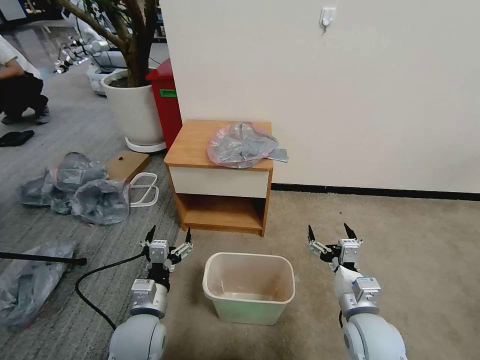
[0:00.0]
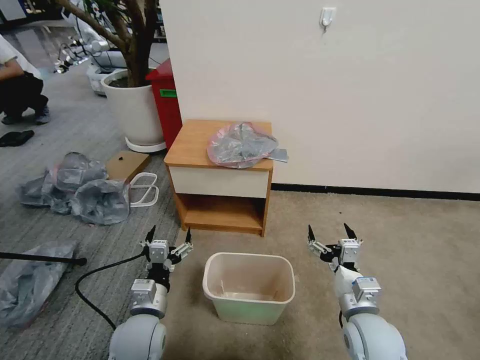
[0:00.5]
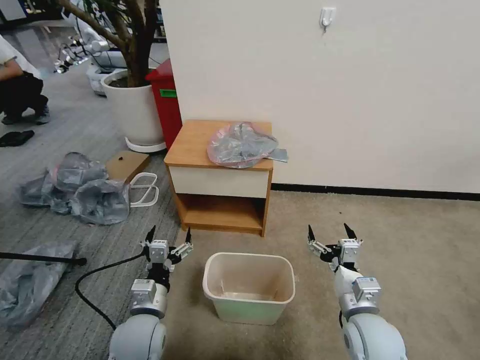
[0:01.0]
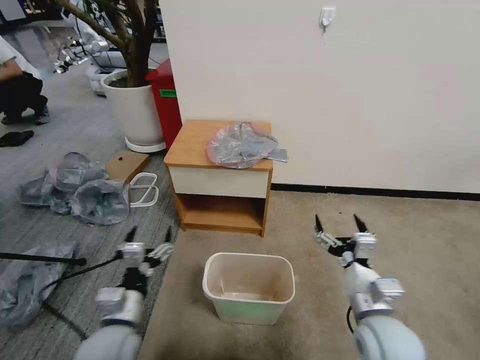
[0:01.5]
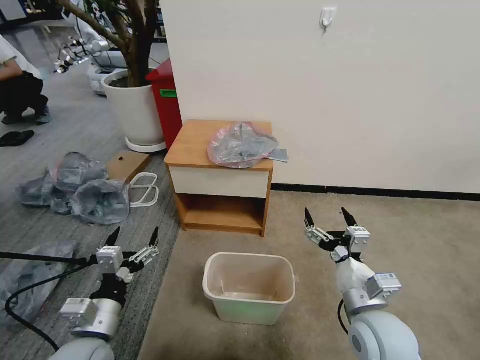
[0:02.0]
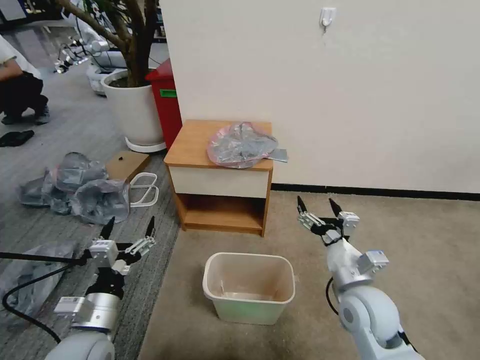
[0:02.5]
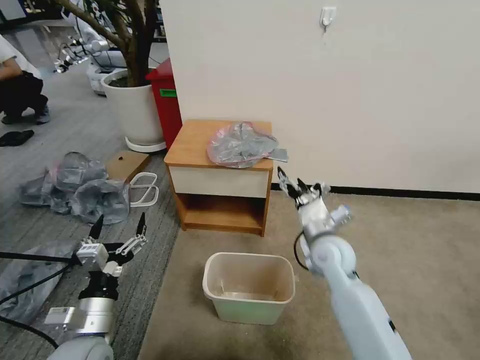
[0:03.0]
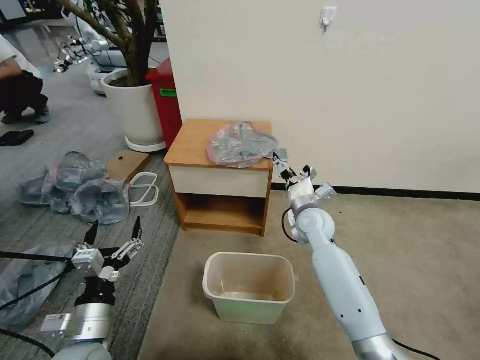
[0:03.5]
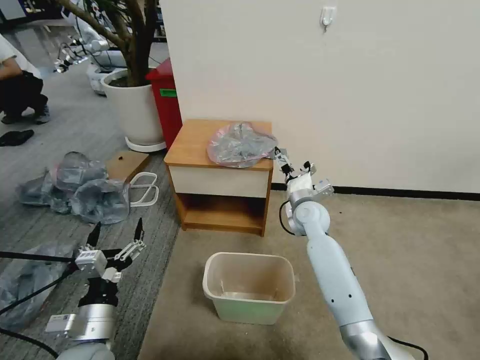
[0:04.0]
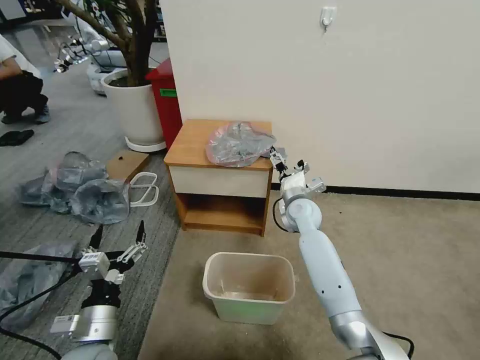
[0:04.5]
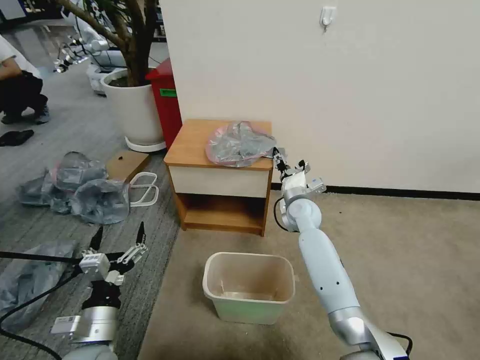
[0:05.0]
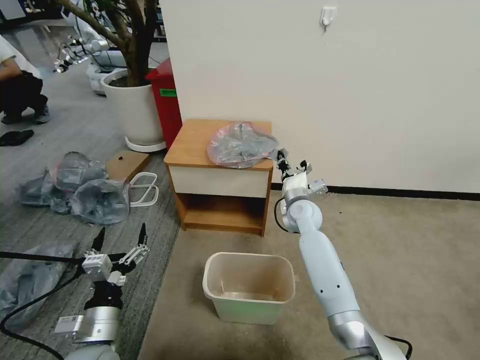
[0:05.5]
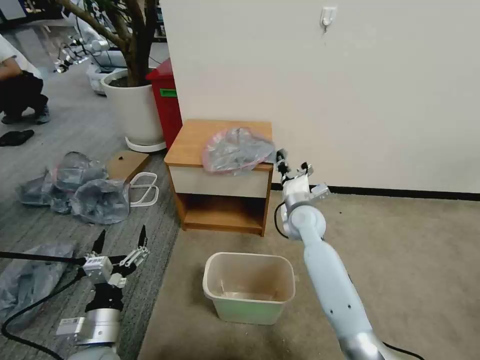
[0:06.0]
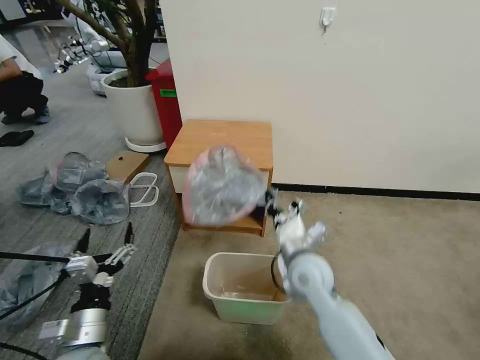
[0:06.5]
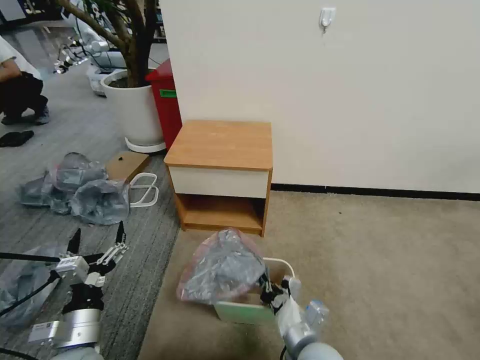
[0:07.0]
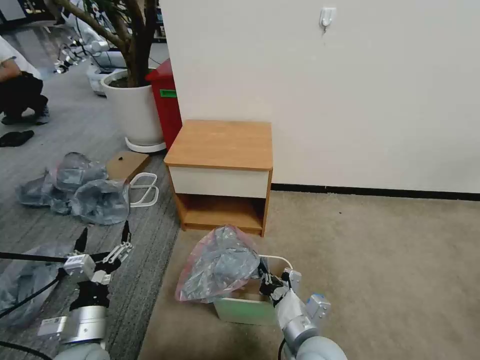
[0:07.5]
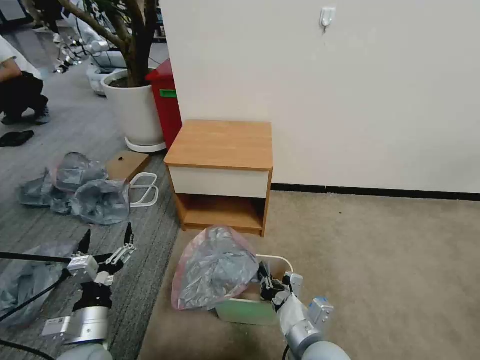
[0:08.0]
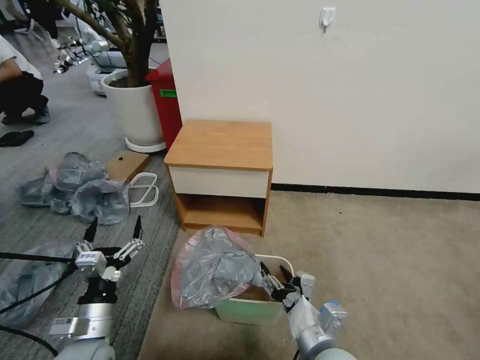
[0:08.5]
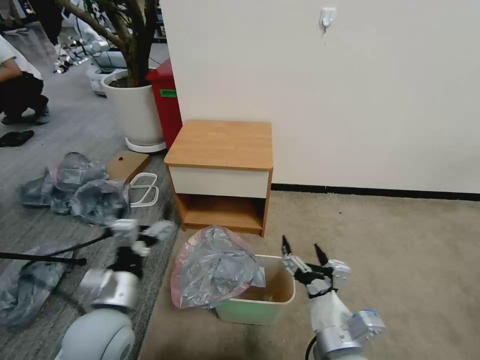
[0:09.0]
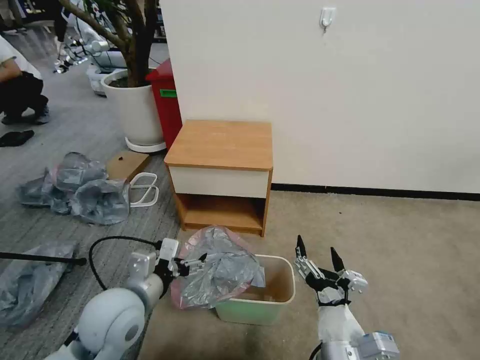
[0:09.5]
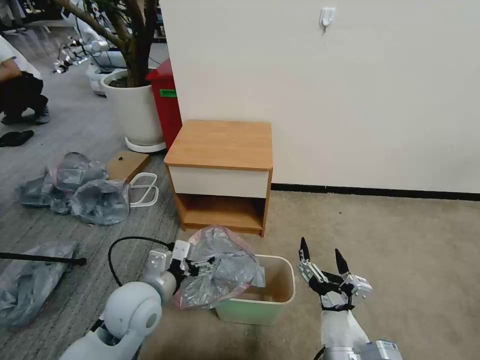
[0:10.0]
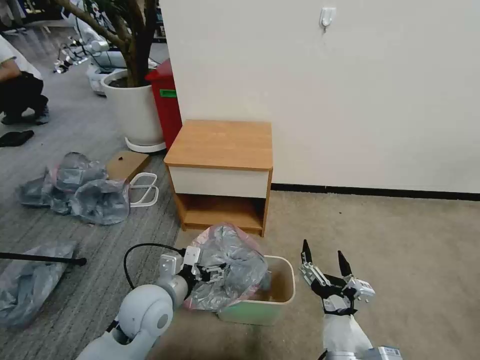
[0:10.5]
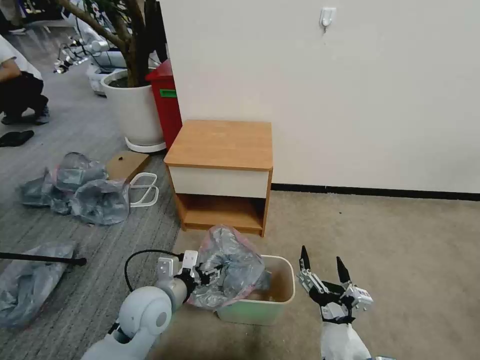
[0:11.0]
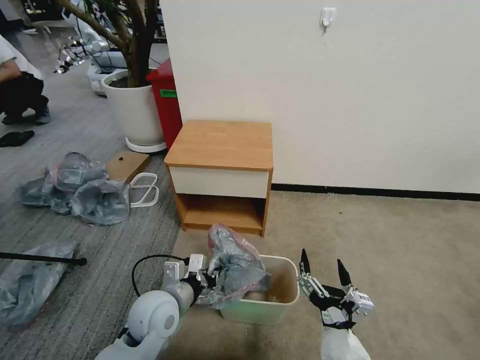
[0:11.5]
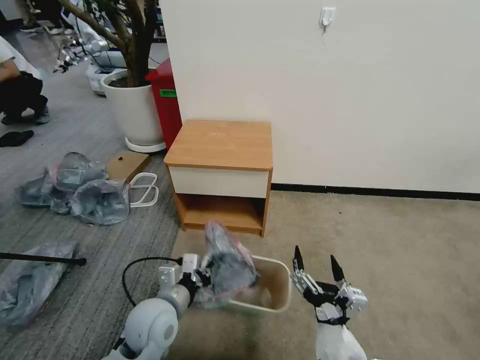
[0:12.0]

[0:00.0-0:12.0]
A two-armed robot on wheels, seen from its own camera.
Task of the whole recording: Pick up the garbage bag from the table and place it over the trash can.
0:02.0 to 0:04.0: The right gripper travels forward by about 30 cm.
0:04.0 to 0:06.0: The right gripper closes its fingers.
0:06.0 to 0:08.0: The right gripper heads backward, covering about 30 cm.
0:08.0 to 0:10.0: The left gripper is displaced forward, to the right and upward by roughly 15 cm, while the right gripper is displaced backward by approximately 5 cm, and opens its fingers.
0:10.0 to 0:12.0: The left gripper shifts by approximately 5 cm, and closes up.

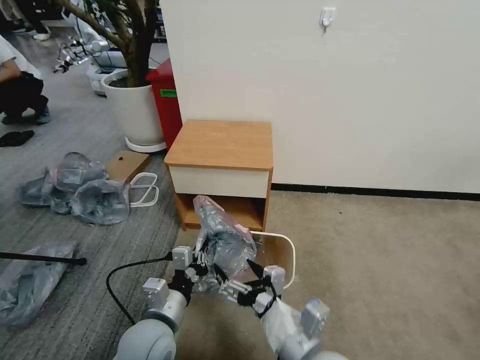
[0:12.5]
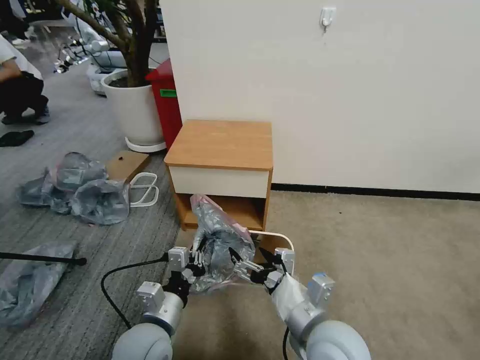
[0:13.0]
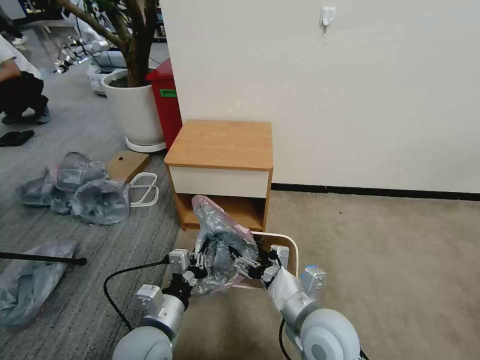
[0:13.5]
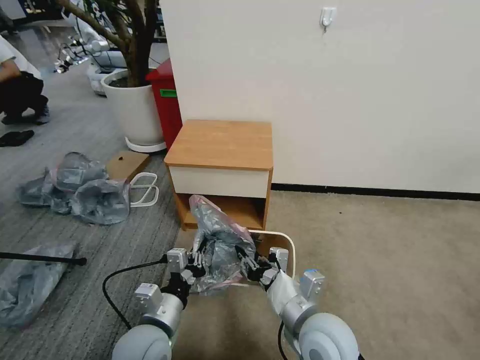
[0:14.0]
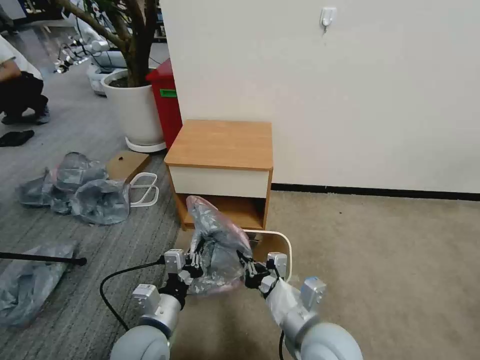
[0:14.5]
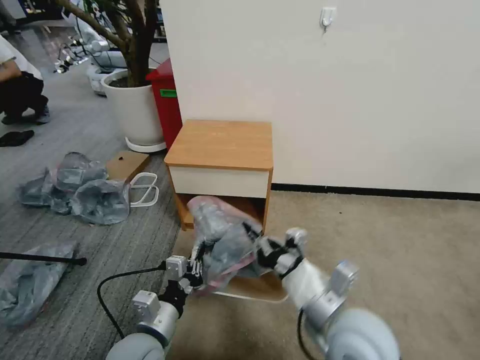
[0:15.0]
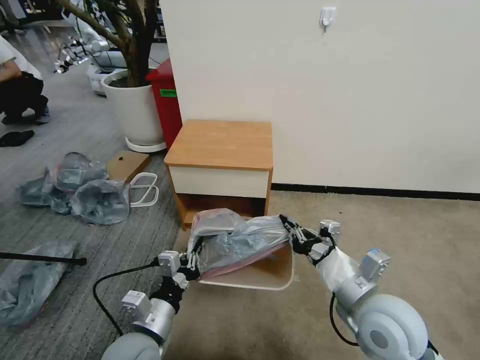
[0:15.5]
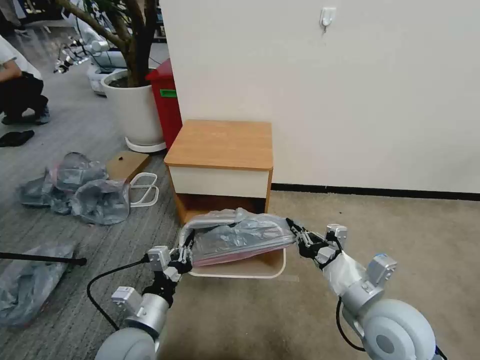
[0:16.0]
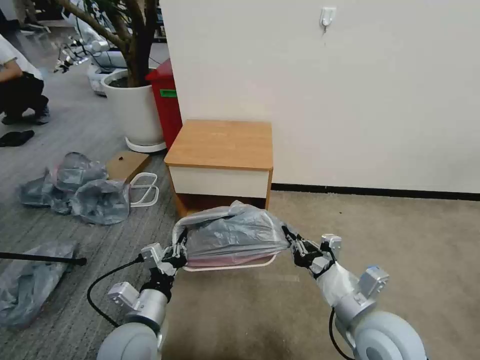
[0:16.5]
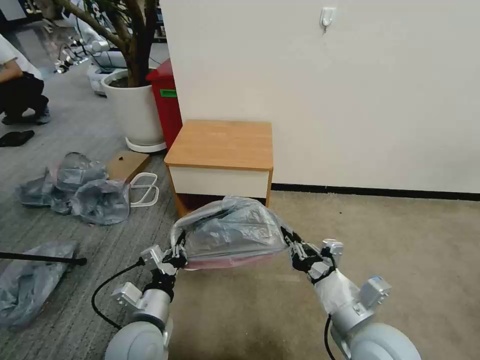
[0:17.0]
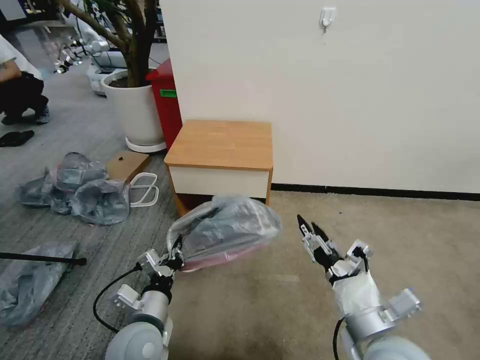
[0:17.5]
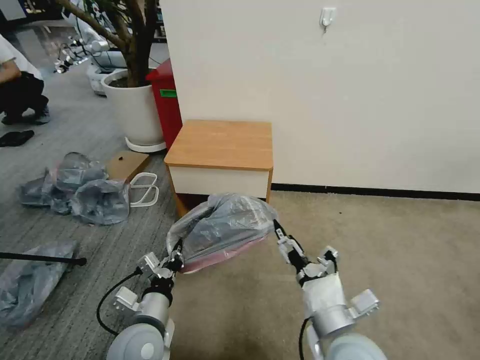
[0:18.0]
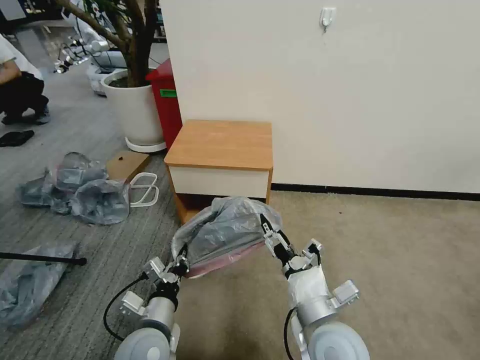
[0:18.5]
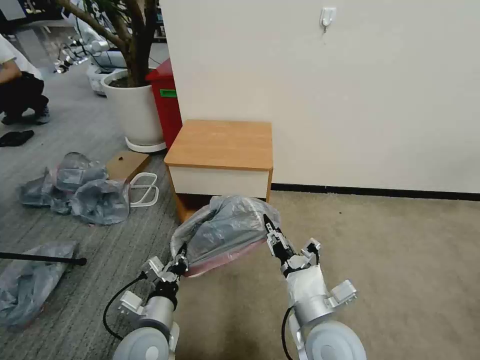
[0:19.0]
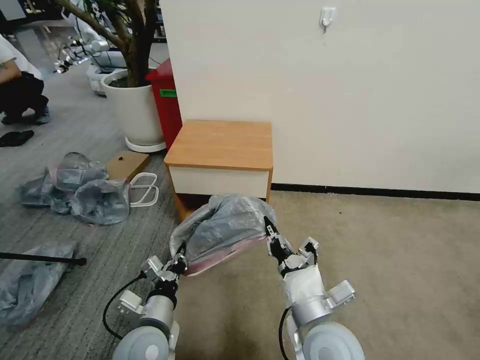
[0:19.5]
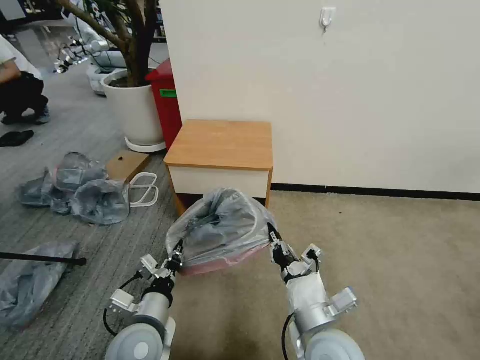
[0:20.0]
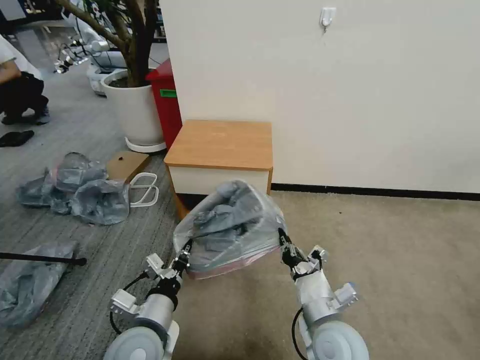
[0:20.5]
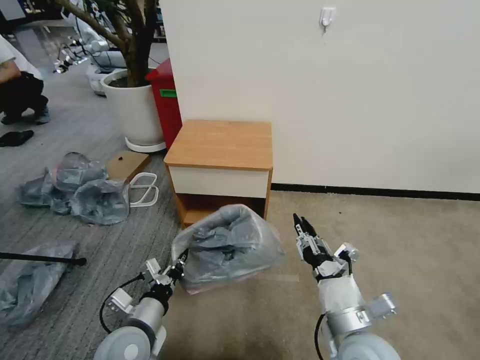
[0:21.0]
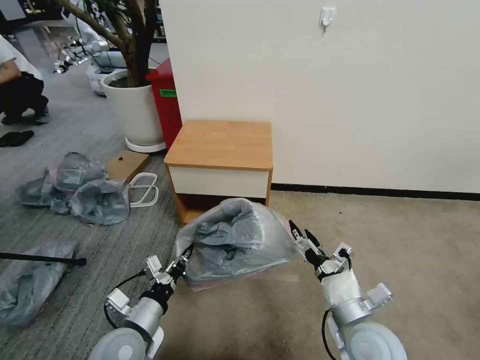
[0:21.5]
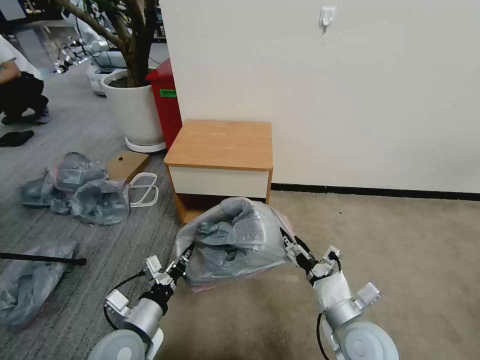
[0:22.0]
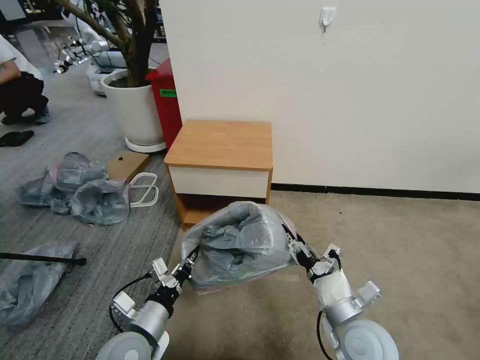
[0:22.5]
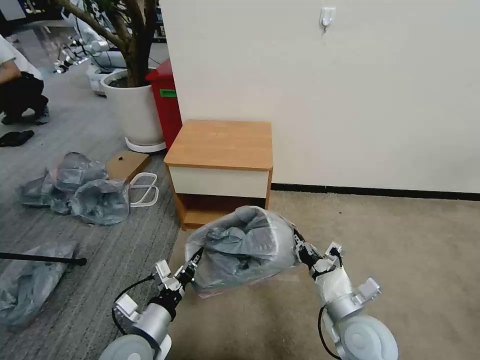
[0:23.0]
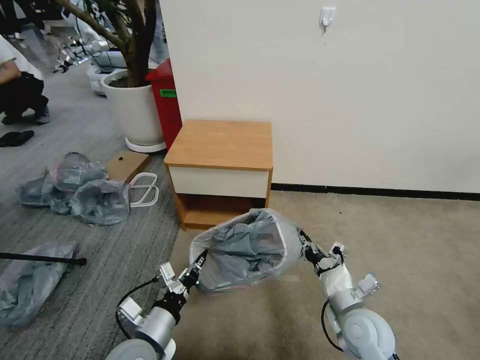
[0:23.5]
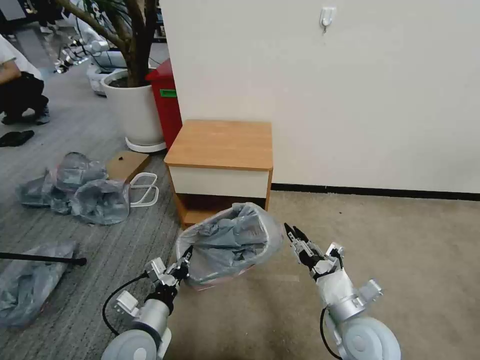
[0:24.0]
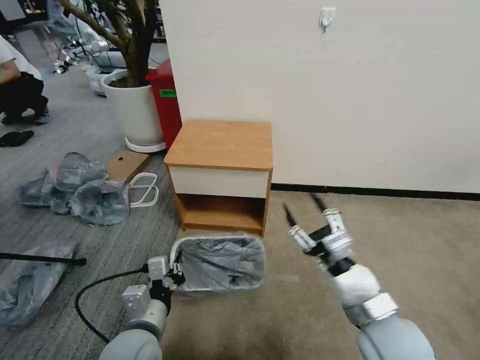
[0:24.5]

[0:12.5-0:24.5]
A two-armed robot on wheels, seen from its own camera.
Task of the whole recording: Pick up the garbage bag from the table and place it over the trash can.
0:12.5 to 0:14.5: The right gripper moves some 5 cm, and closes.
0:14.5 to 0:16.5: The right gripper moves to the right, some 10 cm.
0:16.5 to 0:18.5: The right gripper is displaced to the left by approximately 10 cm, and opens up.
0:18.5 to 0:20.5: The right gripper shifts by roughly 5 cm, and closes up.
0:20.5 to 0:22.5: The right gripper moves to the right, approximately 5 cm, and opens its fingers. Meanwhile the left gripper changes place by approximately 5 cm.
0:22.5 to 0:24.5: The right gripper shifts about 10 cm upward, and closes, then reopens.

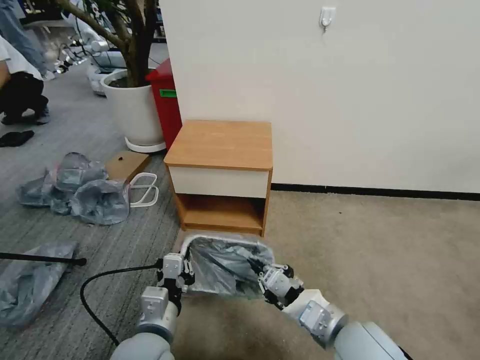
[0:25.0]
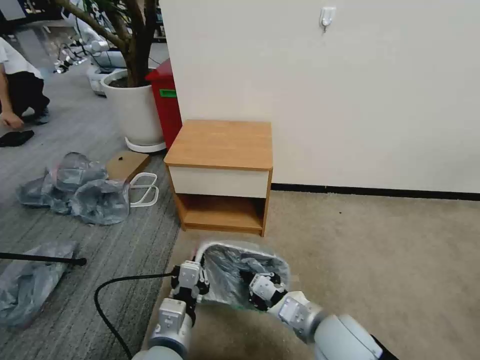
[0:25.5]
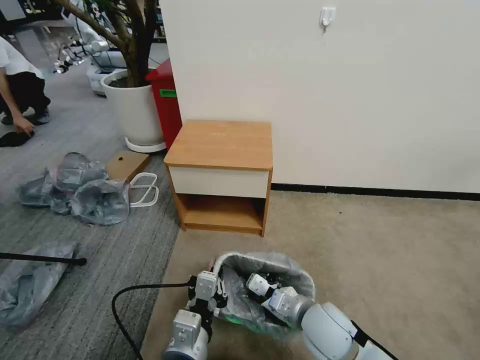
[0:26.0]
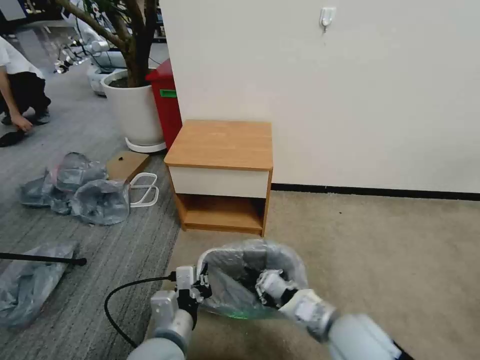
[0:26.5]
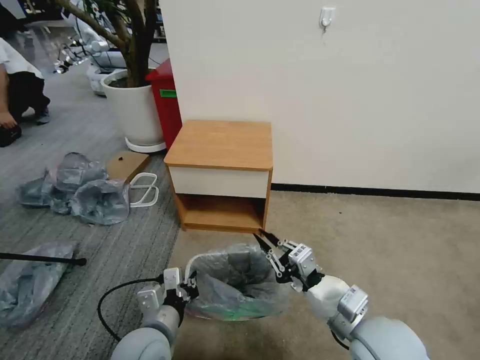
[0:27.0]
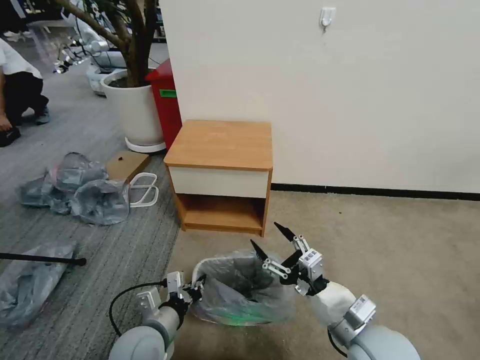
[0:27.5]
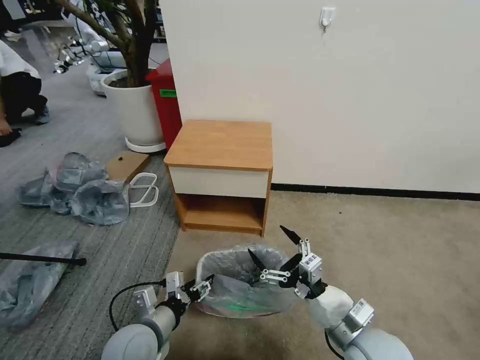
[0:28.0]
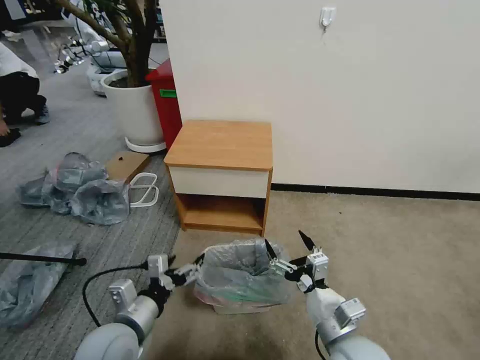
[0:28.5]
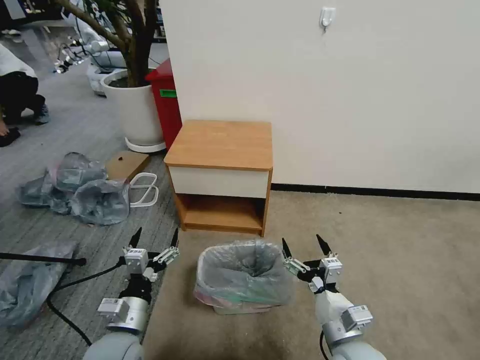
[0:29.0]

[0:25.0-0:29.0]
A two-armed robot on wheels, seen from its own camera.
Task of the whole recording: Pick up the garbage bag from the table and place it over the trash can.
0:25.0 to 0:27.0: The right gripper travels downward and back again, about 10 cm each way.
0:27.0 to 0:29.0: The left gripper travels to the left by some 5 cm, and opens its fingers. The right gripper moves downward, roughly 10 cm, and opens up.
